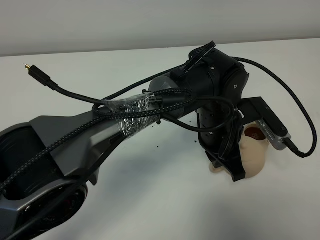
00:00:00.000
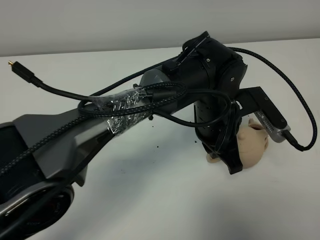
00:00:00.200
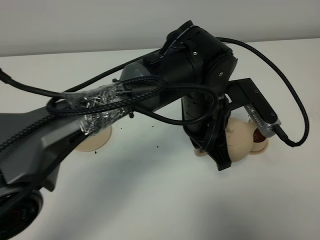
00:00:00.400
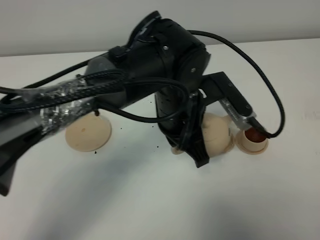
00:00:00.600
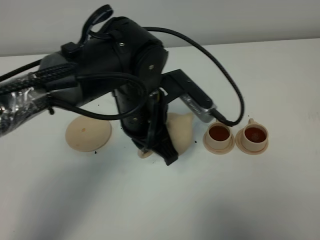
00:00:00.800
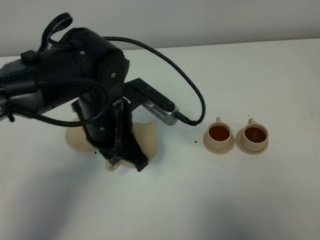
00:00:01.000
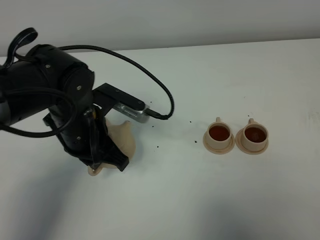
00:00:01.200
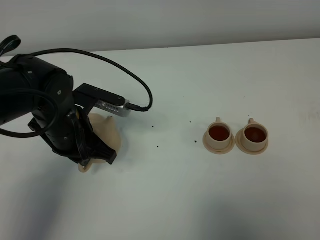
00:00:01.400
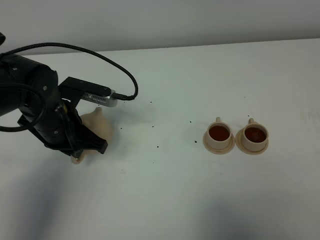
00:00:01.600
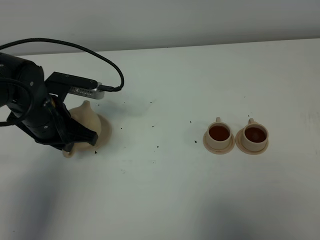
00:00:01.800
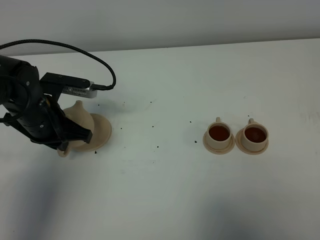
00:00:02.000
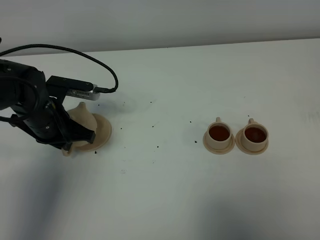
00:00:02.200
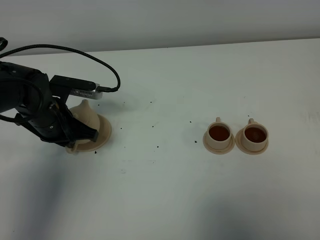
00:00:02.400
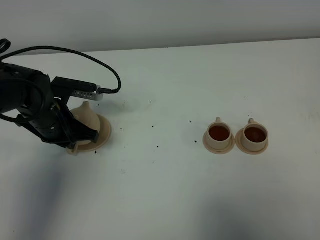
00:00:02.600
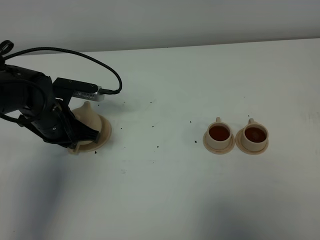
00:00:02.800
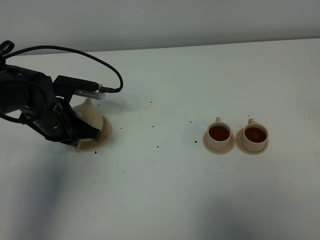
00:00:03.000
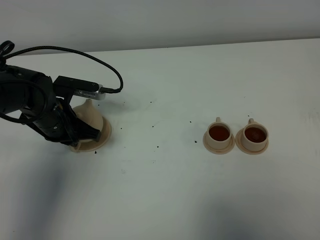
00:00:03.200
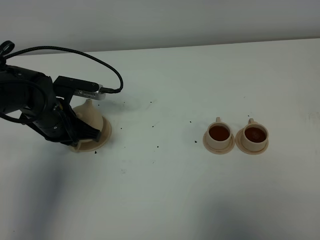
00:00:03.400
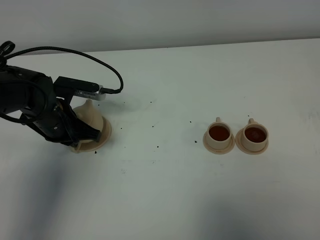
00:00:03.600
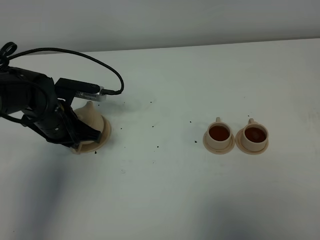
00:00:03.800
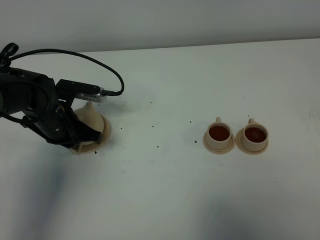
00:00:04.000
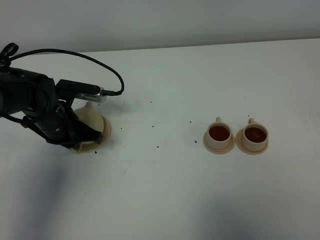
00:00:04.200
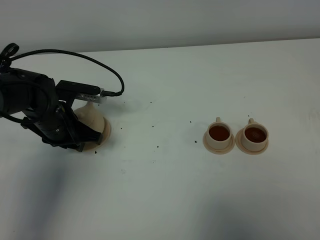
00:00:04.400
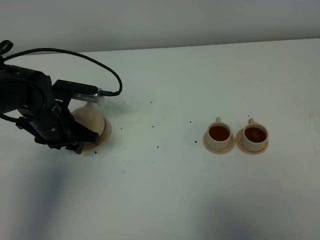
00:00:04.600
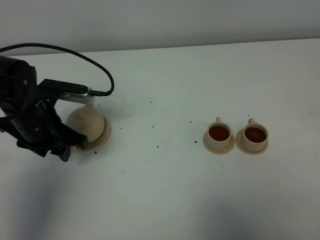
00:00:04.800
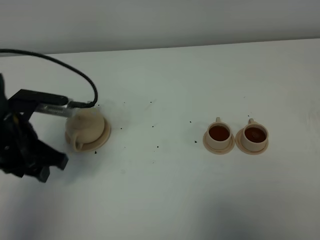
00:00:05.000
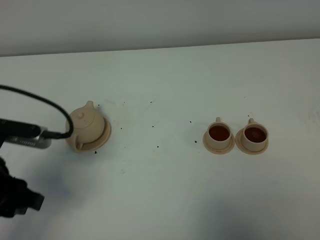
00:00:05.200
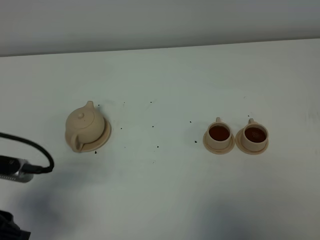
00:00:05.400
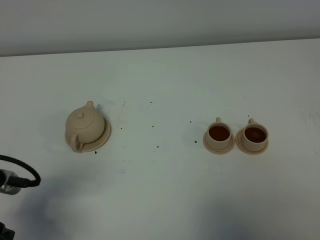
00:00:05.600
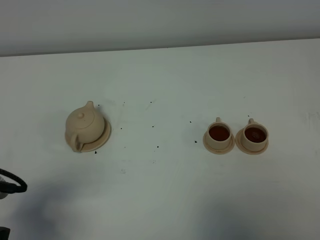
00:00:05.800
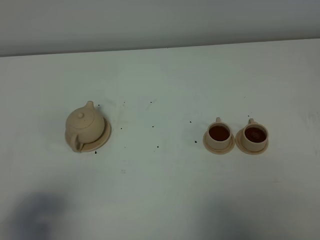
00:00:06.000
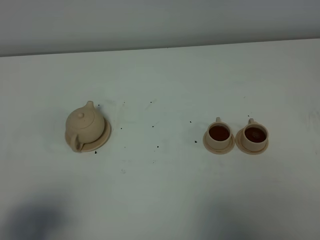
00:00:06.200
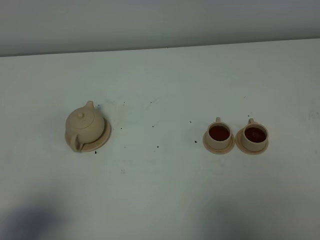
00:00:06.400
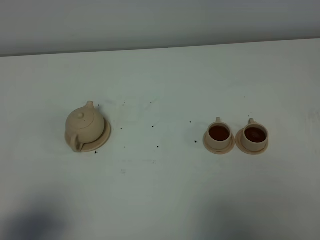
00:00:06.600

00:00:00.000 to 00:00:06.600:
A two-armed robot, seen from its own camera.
Task of the whole recording: grasp the brown teapot and pour the tea into the two brown teacups one by one, put the brown teapot back in its original place.
00:00:00.000 to 00:00:01.600: The left gripper goes about 25 cm to the left.
00:00:01.600 to 00:00:03.200: The left gripper moves about 5 cm.
00:00:03.200 to 00:00:05.000: The left gripper travels backward and upward by approximately 15 cm, and opens its fingers.
00:00:05.000 to 00:00:06.600: The left gripper shifts some 20 cm backward.
